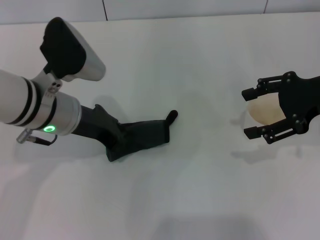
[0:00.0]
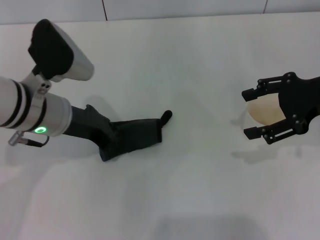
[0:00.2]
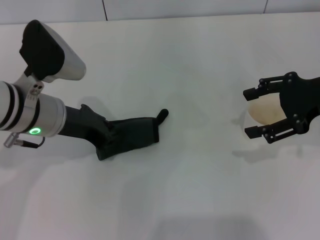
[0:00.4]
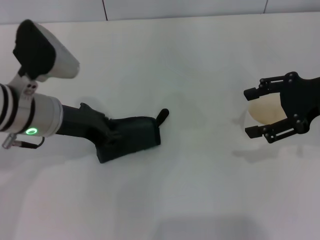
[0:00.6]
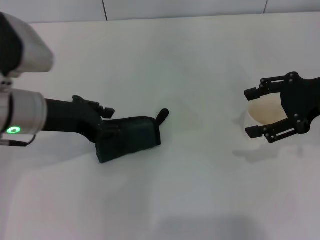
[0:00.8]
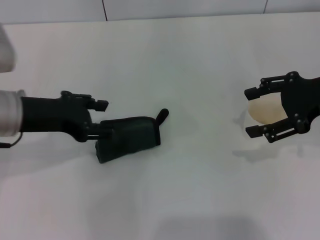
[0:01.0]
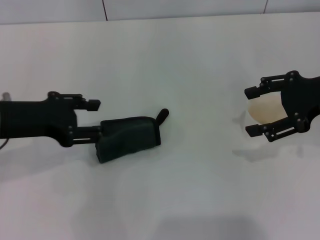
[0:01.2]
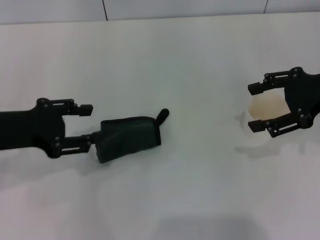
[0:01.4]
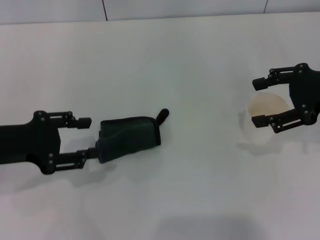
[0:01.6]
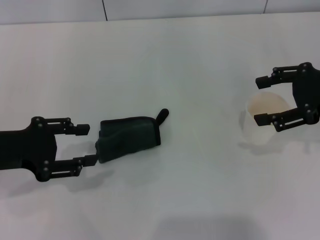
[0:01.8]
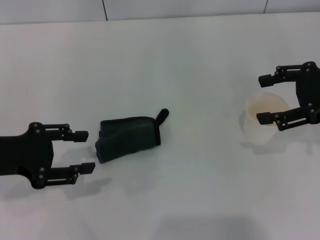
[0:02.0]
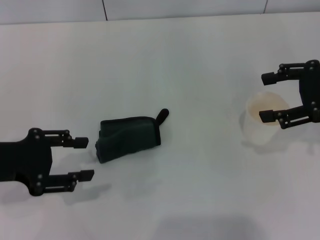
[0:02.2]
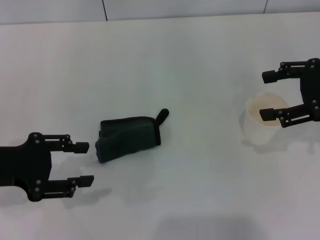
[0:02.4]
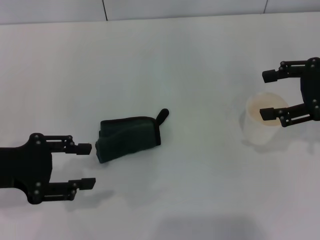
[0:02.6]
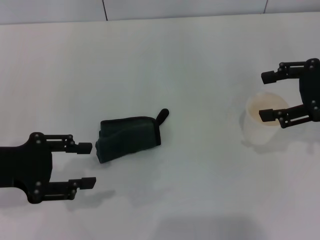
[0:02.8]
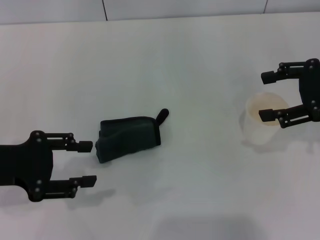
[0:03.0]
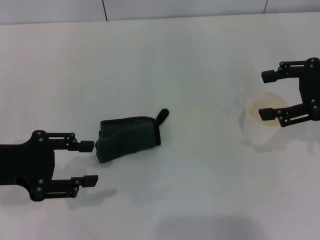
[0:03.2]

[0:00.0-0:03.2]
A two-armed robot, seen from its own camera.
Step, 0:00.0 to 0:01.0: Place the rag on the table with the left gripper.
0:00.0 to 0:01.6: The left gripper moves to the left and backward, approximately 15 cm, and opens its fingers.
0:01.6 to 0:03.2: There are only small adjustments of the grippers.
